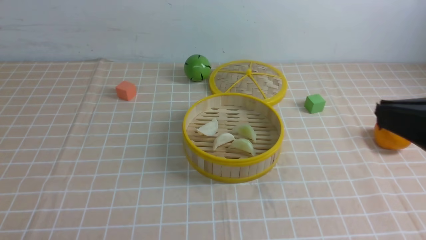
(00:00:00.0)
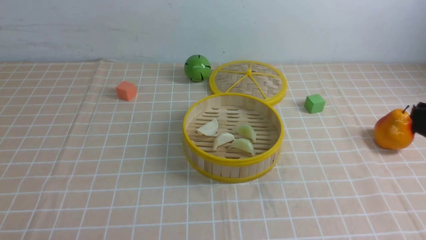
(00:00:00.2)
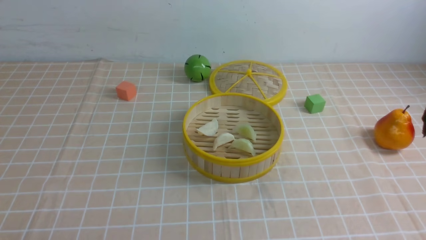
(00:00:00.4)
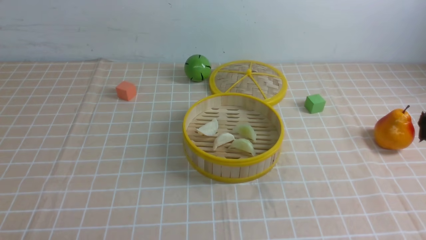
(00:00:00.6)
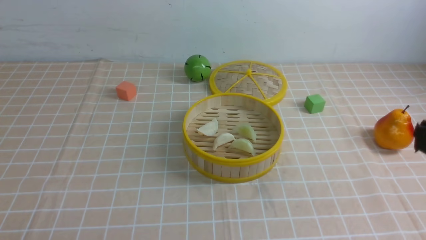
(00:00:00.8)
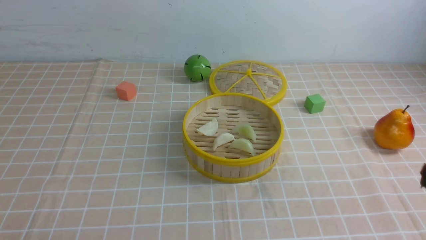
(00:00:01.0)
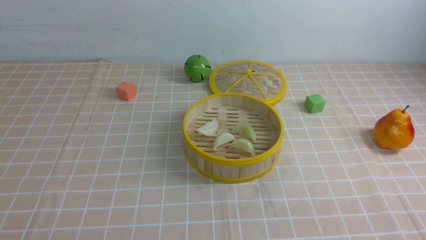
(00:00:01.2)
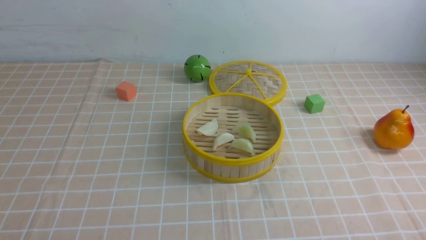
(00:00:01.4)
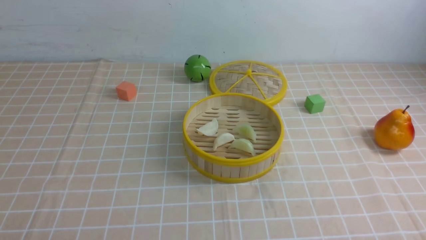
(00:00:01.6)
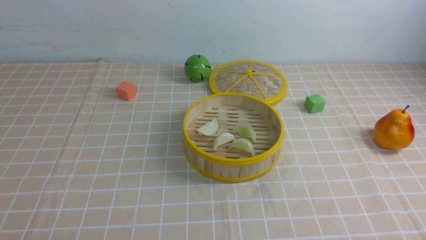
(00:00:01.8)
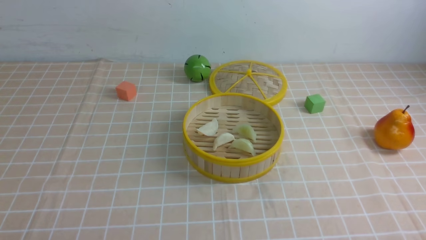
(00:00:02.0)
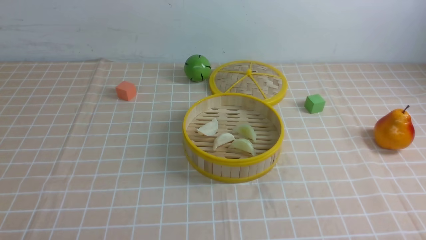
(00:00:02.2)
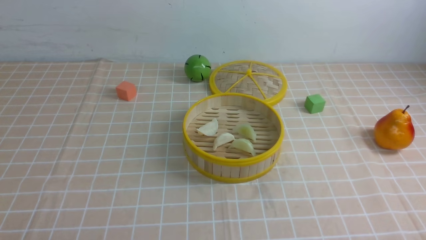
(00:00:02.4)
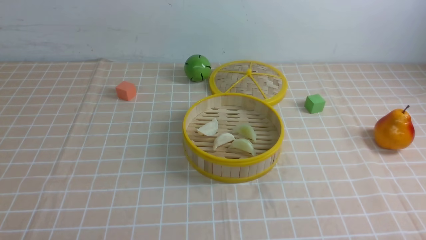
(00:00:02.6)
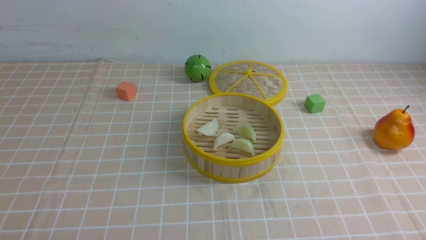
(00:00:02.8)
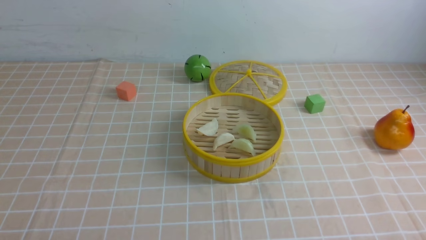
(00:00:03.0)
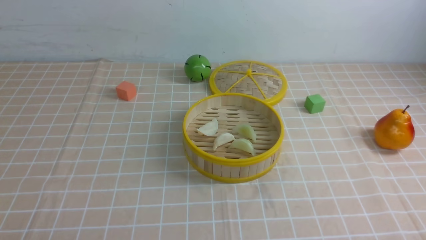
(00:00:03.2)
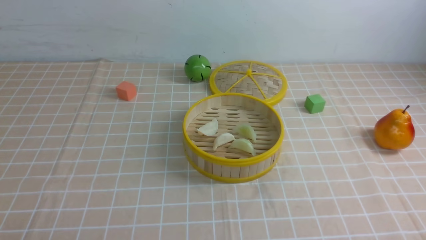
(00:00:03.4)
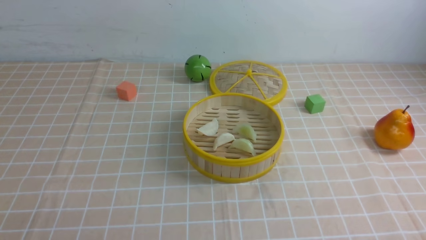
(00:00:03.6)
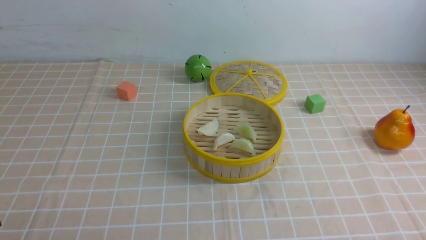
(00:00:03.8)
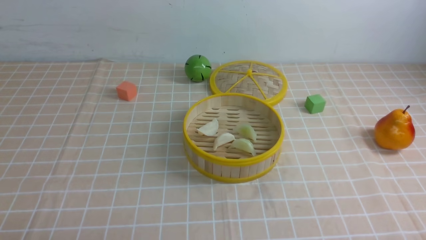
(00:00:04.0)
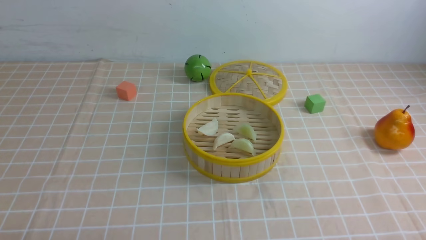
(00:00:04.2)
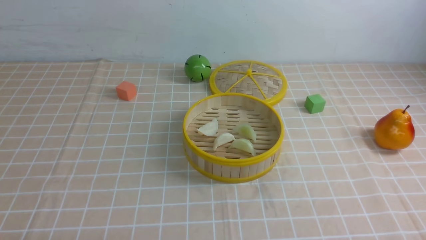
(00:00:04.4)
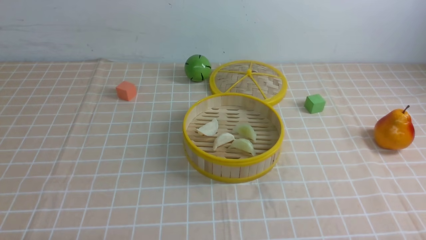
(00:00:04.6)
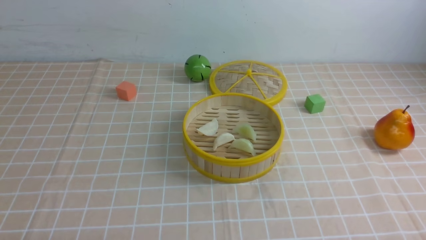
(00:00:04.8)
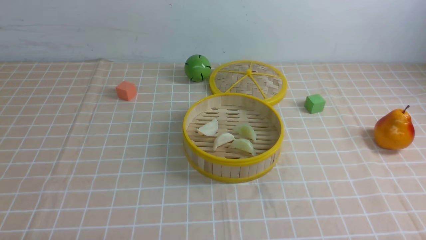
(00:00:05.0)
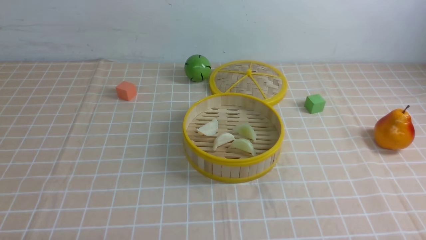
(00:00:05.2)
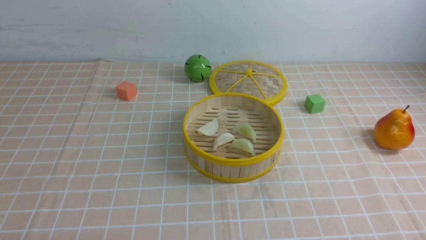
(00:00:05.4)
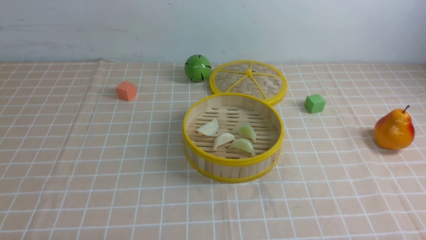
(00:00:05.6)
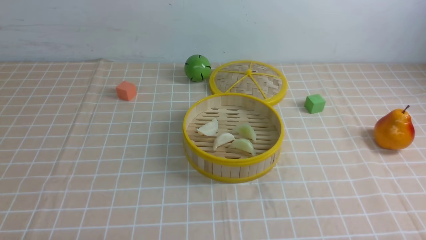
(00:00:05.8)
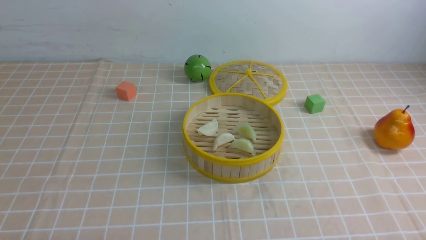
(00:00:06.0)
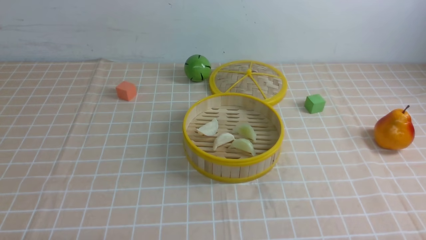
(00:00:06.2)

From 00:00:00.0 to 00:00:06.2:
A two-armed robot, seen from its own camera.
Task of the whole recording: put the dumplings into the steamer on the table with the brown tablecloth.
From 00:00:00.0 to 00:00:01.6: The right gripper shifts some 25 cm downward, to the right and backward.
From 00:00:04.6 to 00:00:06.2: Both grippers stay about where they are.
